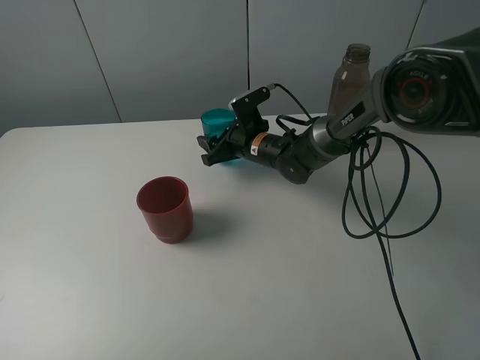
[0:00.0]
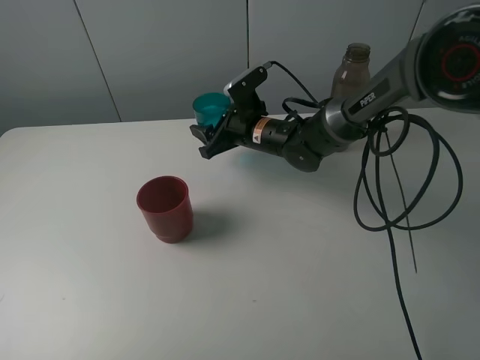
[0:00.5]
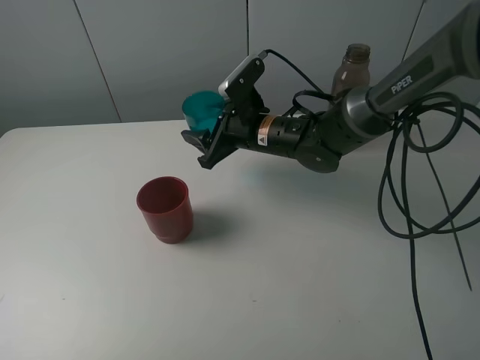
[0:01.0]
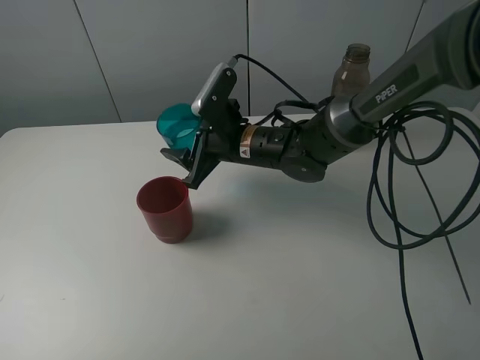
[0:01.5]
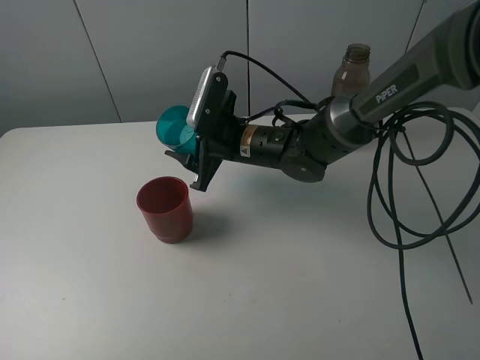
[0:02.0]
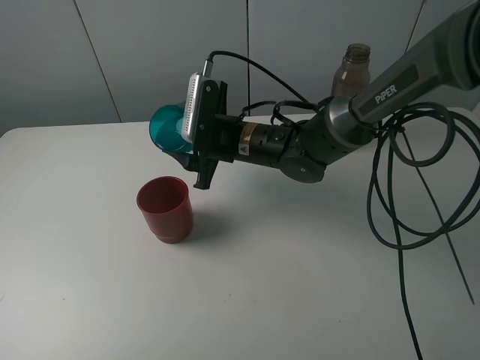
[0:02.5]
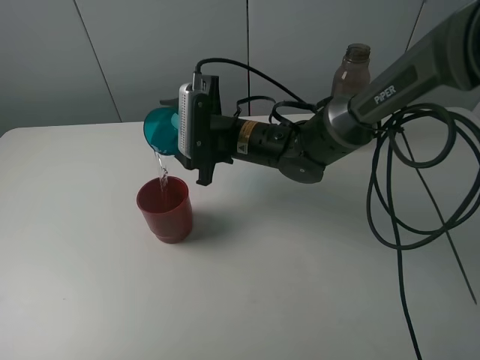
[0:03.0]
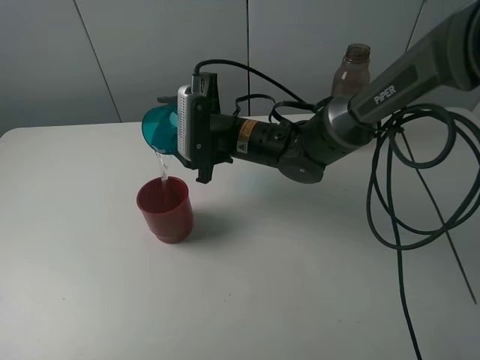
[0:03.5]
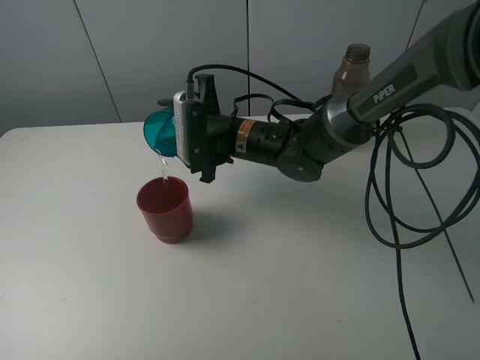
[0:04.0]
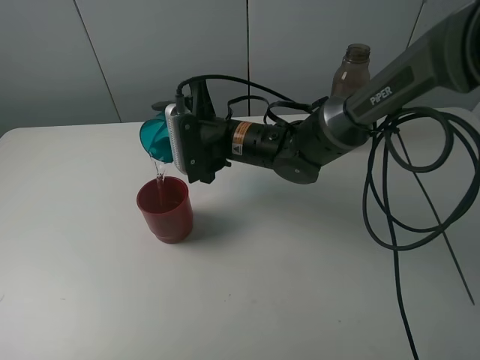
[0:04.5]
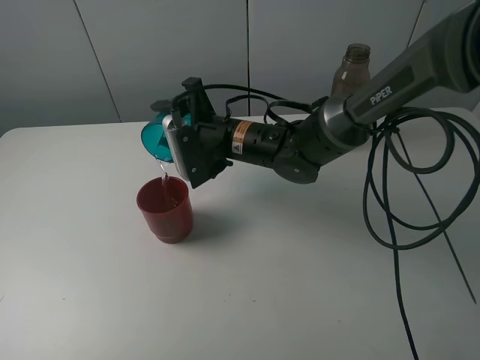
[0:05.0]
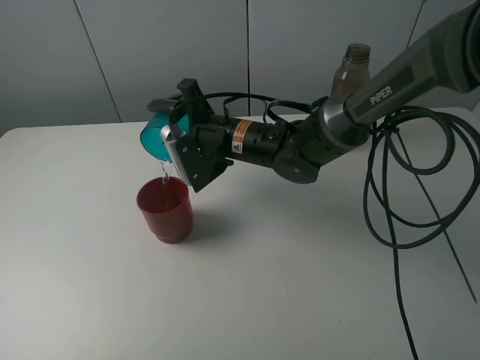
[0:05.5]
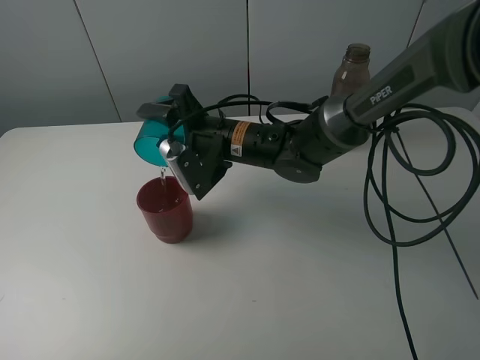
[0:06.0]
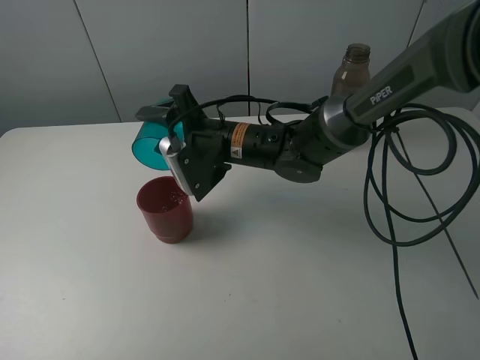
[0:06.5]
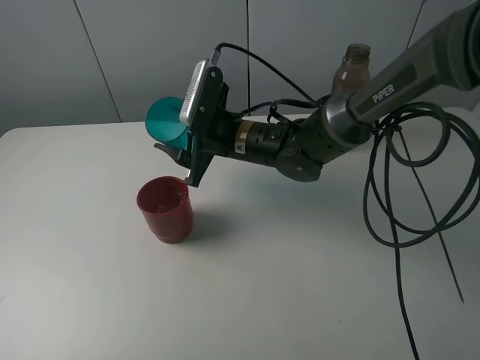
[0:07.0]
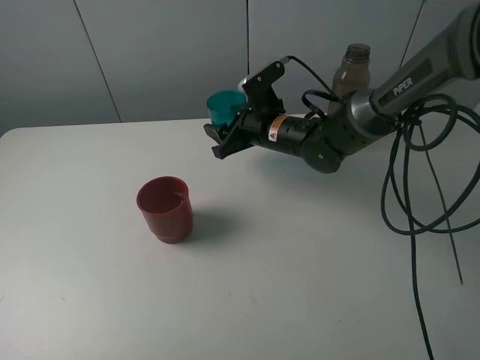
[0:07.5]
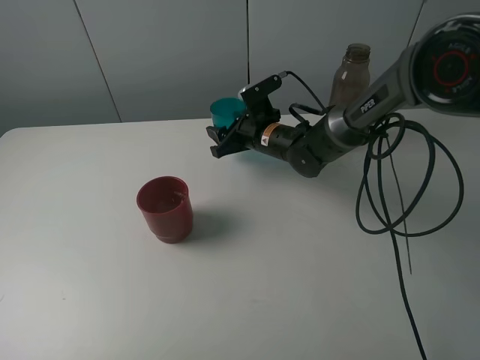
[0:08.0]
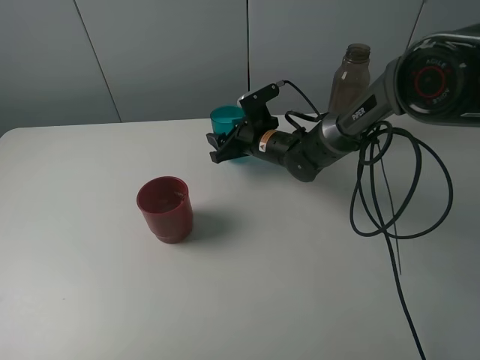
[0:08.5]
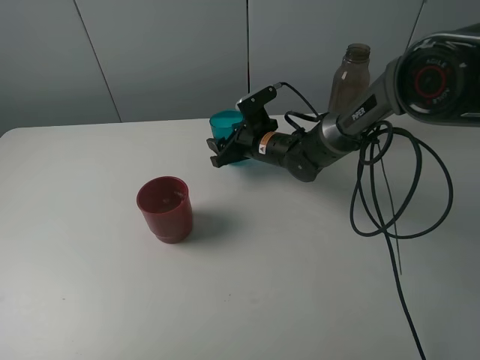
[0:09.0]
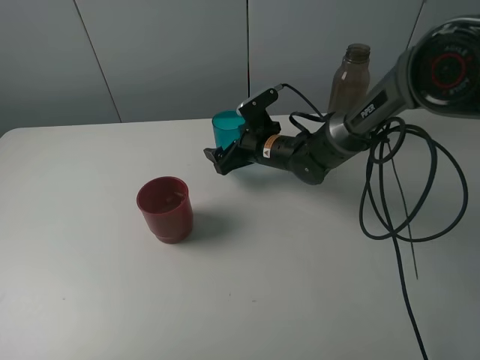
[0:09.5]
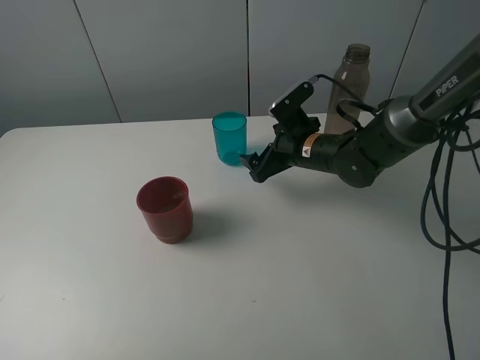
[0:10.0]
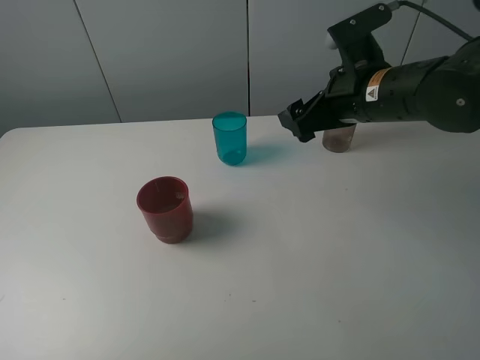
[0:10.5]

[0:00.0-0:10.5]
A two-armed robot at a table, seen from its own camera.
Task of the whole recording: pick up the bottle and pour water into the cup, then pick up the cup containing water and pour it into another cup.
Step, 0:00.0 to 0:06.5: Pour water from blue cup to red cup with the right gripper.
Step, 0:07.0 to 0:09.5: Place the blue cup with the right gripper.
0:00.0 to 0:02.0: The right gripper heads backward and upward, covering roughly 10 cm.
0:06.5 to 0:08.5: The right gripper shifts roughly 15 cm forward, downward and to the right.
0:08.5 to 0:10.5: The right gripper shifts roughly 25 cm upward, backward and to the right, and opens.

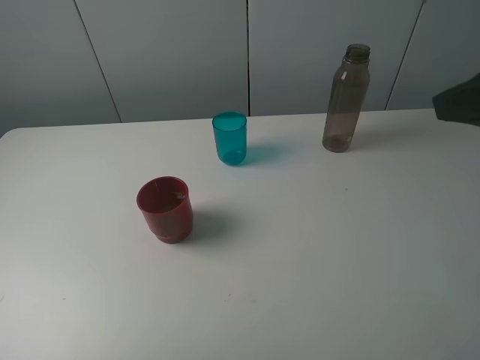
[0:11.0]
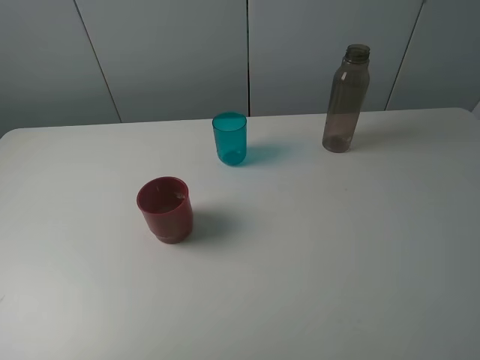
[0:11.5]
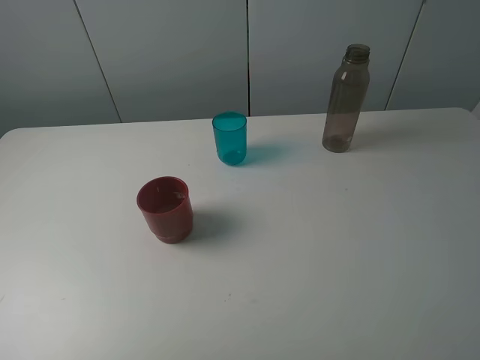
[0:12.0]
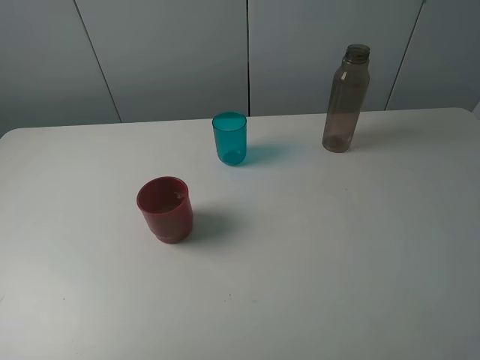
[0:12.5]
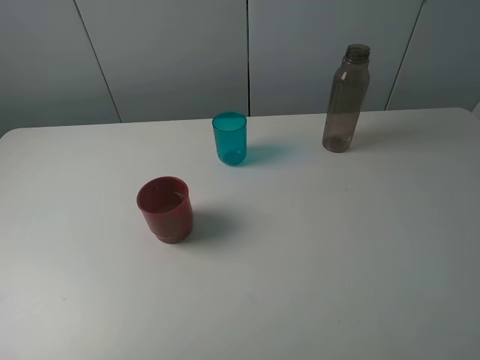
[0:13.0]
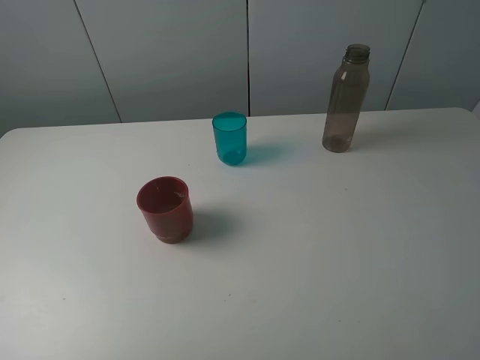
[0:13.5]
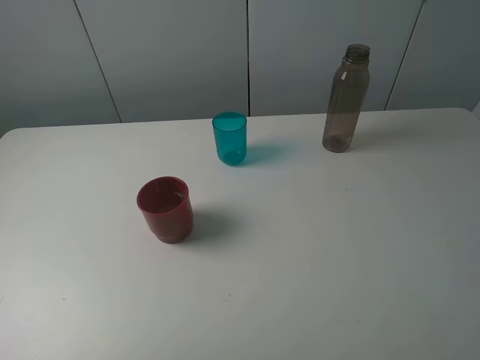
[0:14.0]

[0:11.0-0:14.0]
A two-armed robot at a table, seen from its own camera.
Task of the whole recording: pick up the bottle and pour water into the cup, then pick up the cup containing water and pour it into another cup.
0:11.0 to 0:12.5: The right gripper moves backward and downward, roughly 15 cm.

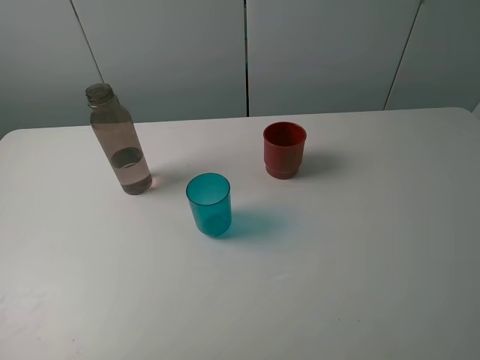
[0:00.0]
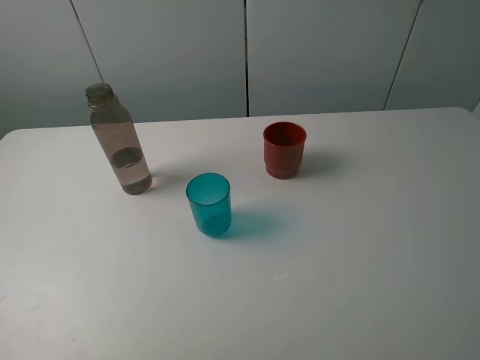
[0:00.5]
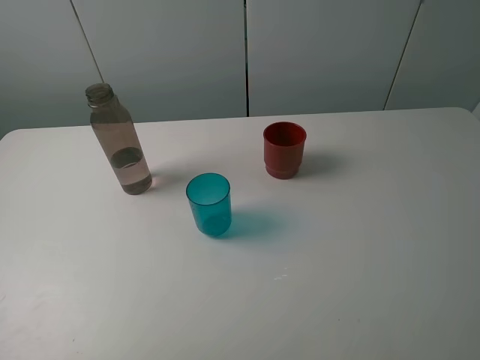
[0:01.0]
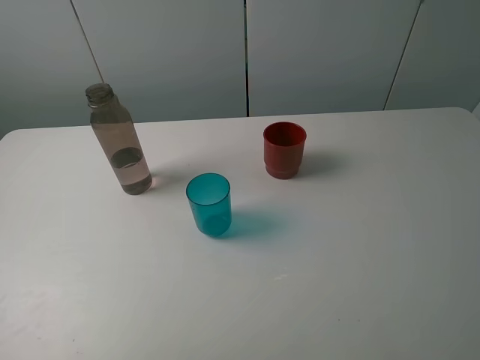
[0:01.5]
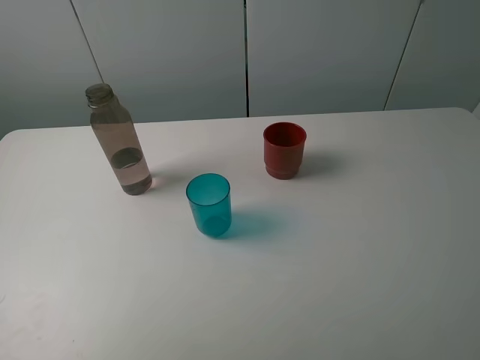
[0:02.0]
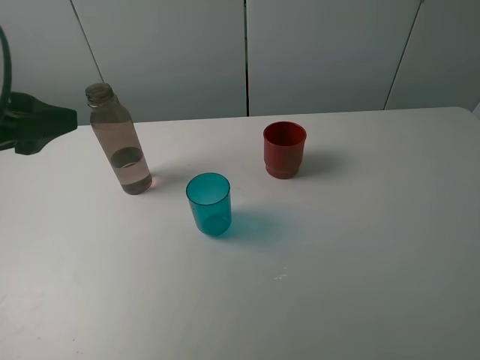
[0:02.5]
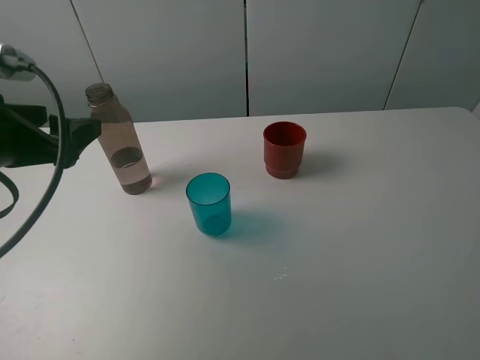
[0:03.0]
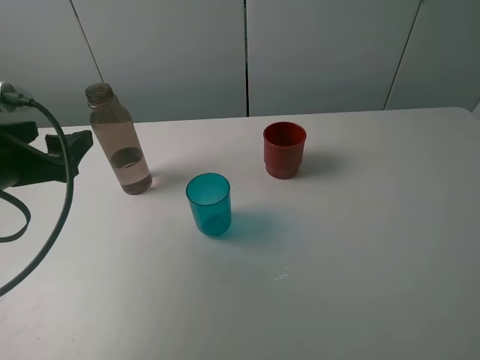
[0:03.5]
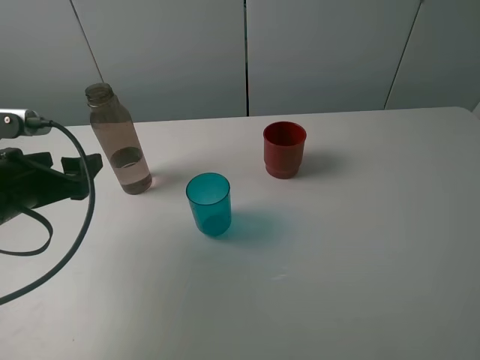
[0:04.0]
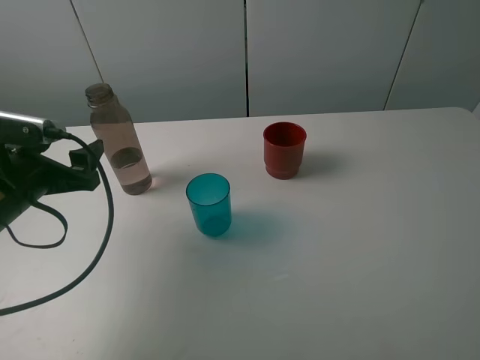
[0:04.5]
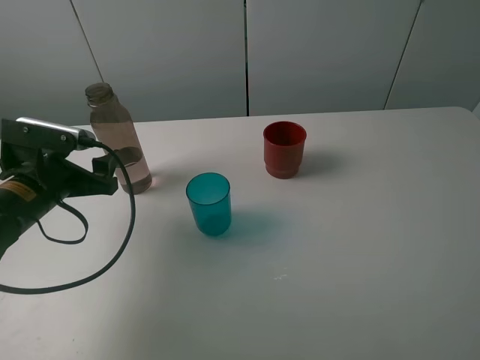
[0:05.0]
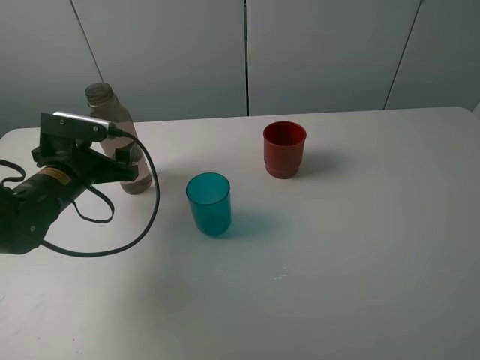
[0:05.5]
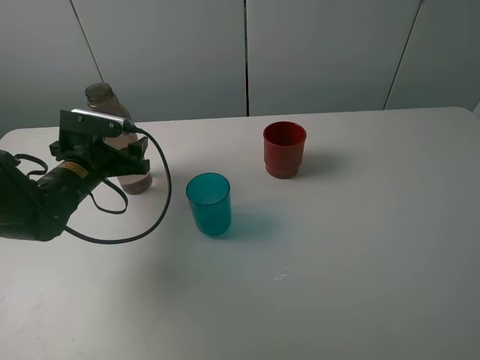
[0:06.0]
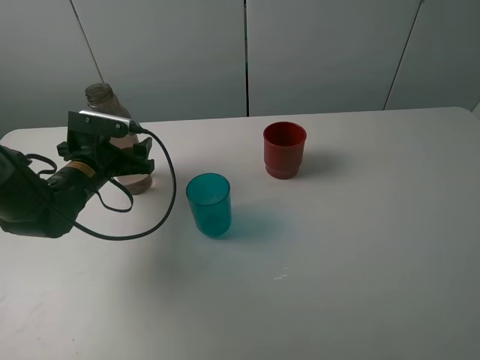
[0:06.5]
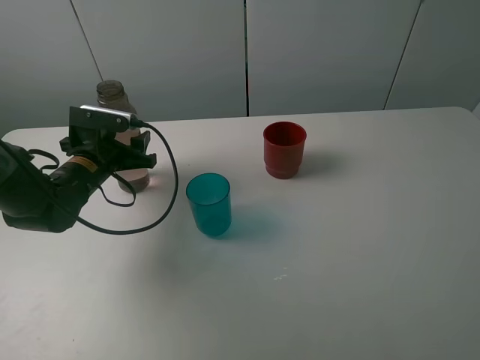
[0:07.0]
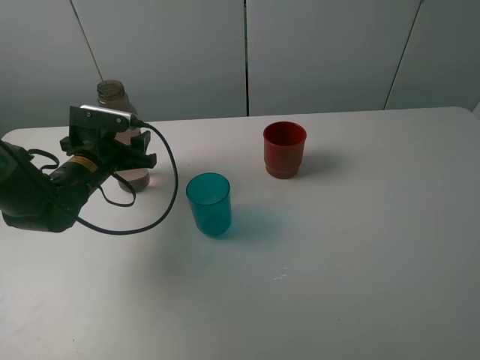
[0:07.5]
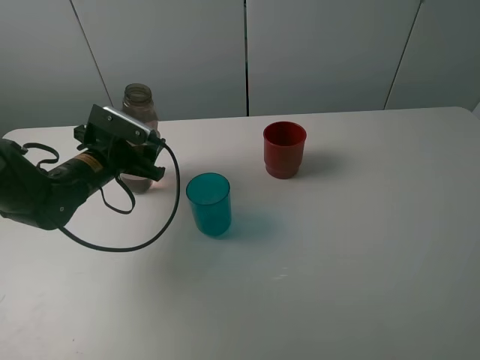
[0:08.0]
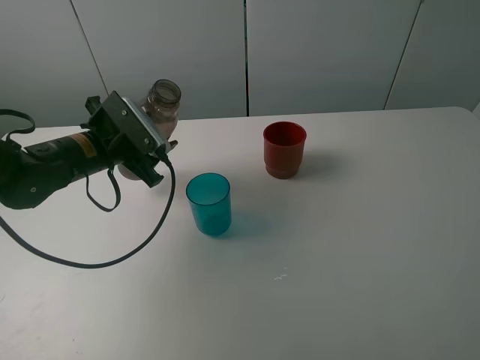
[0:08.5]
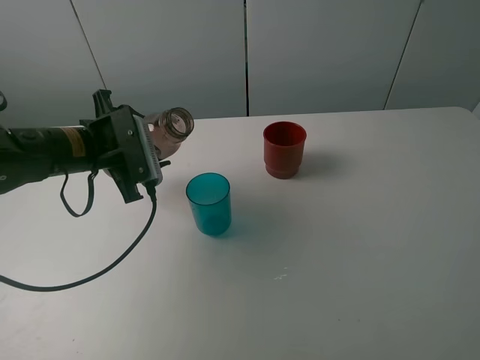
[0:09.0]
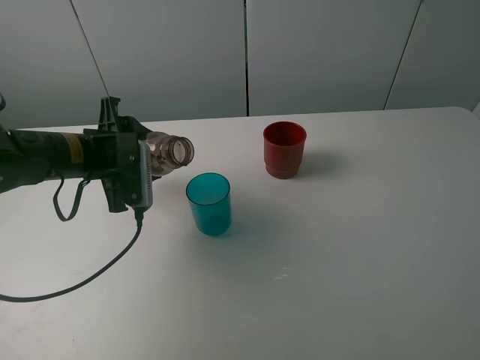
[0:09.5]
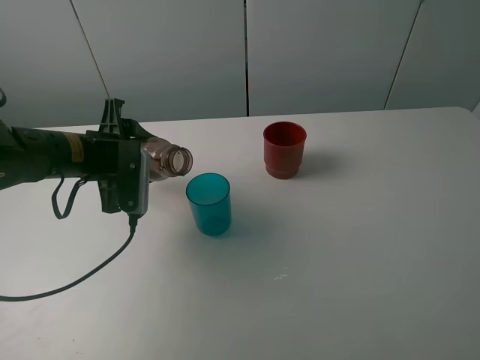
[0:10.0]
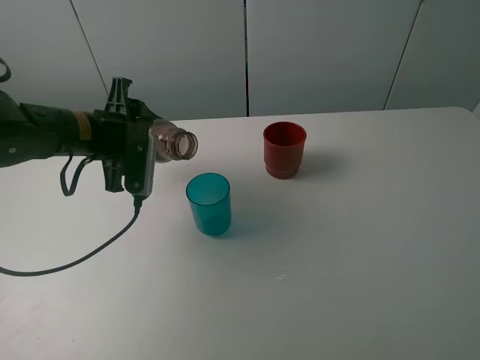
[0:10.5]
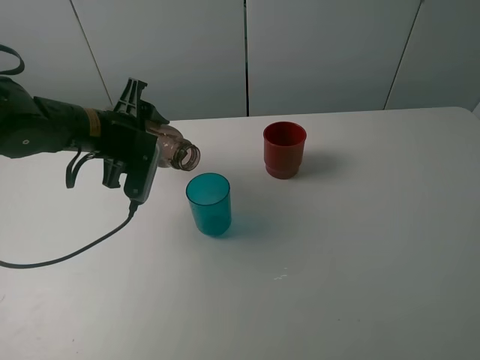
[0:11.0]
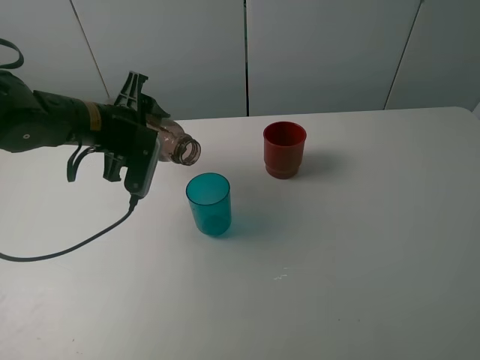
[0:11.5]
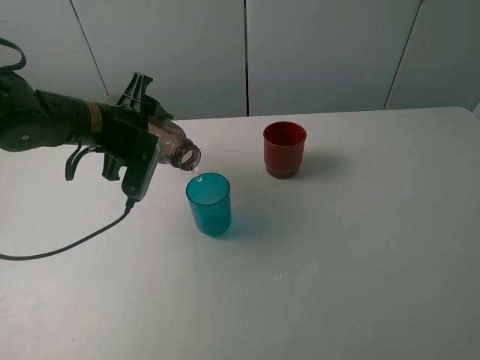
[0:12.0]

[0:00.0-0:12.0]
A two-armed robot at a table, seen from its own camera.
Task of the whole recording: pick up the bottle and pour water into the cup, then pick up the cup containing water and pour it into another cup.
Step, 0:00.0 to 0:07.0: Grasp the brown bottle with the left gripper.
0:02.0 to 0:04.0: The left gripper is displaced downward and forward by roughly 20 cm.
0:04.0 to 0:06.0: The left gripper goes approximately 15 cm forward and downward.
0:06.0 to 0:08.0: The left gripper closes up.
0:08.0 to 0:10.0: The left gripper is displaced upward by some 5 cm.
